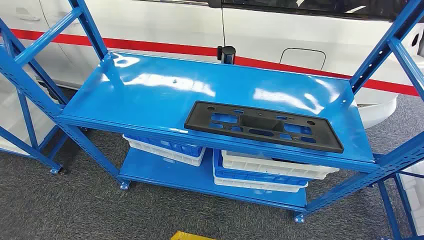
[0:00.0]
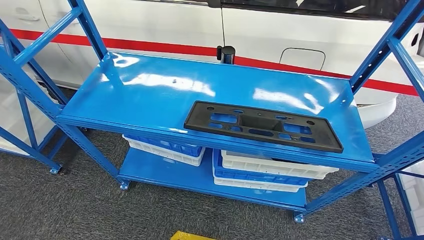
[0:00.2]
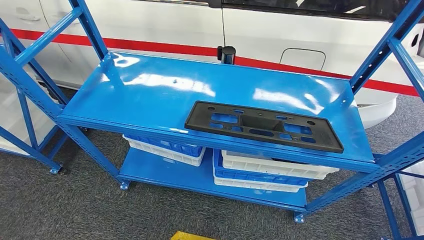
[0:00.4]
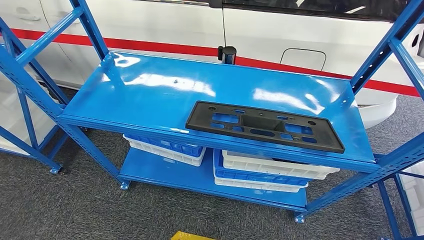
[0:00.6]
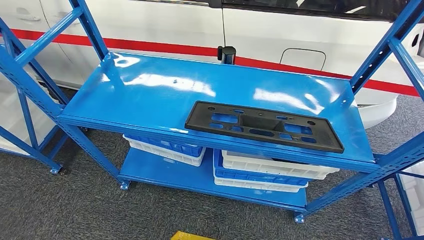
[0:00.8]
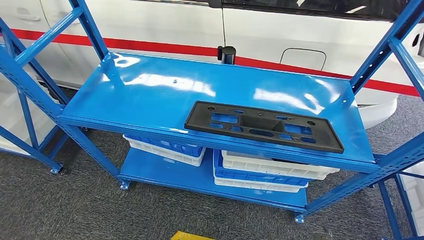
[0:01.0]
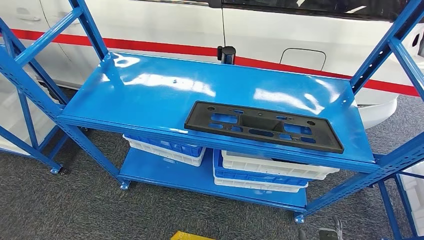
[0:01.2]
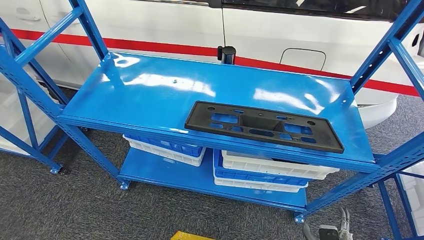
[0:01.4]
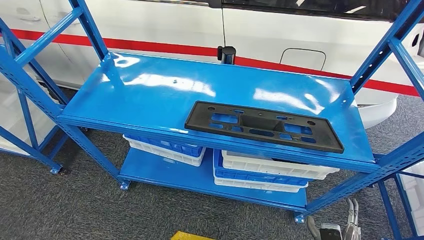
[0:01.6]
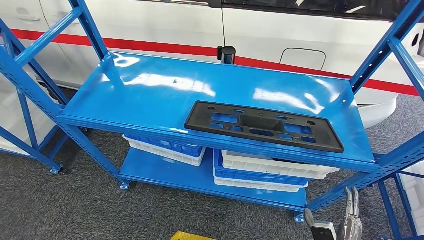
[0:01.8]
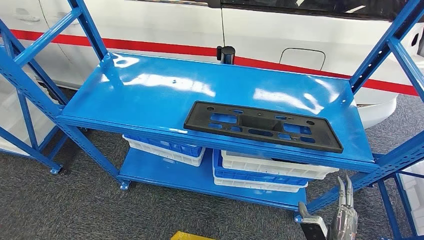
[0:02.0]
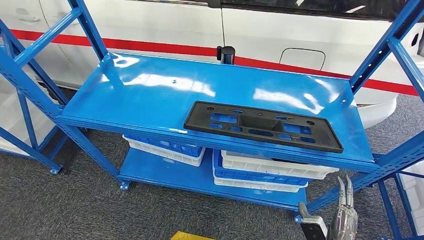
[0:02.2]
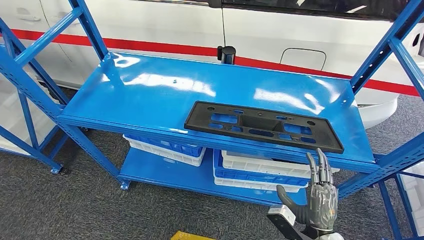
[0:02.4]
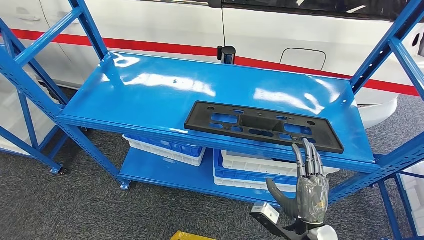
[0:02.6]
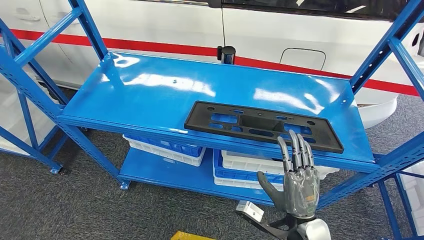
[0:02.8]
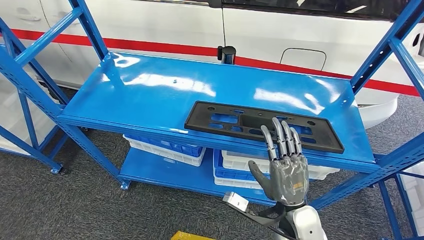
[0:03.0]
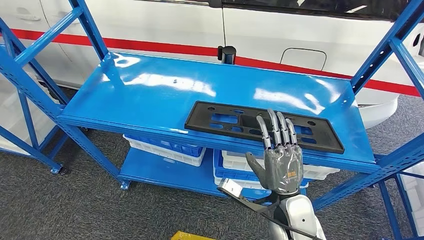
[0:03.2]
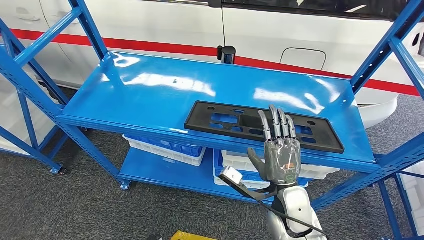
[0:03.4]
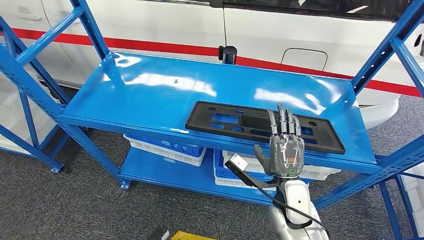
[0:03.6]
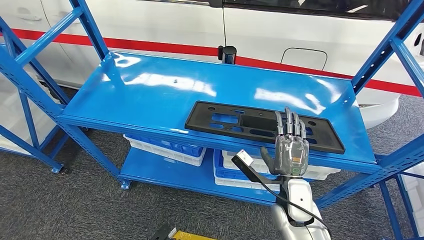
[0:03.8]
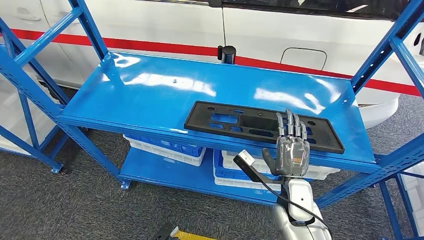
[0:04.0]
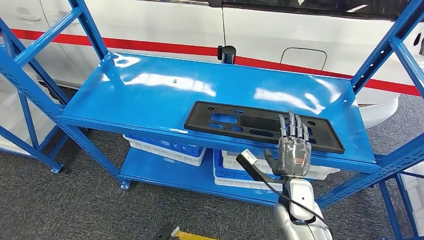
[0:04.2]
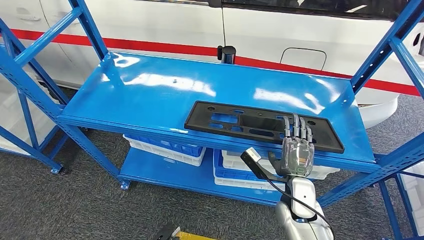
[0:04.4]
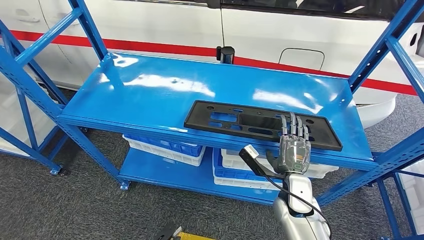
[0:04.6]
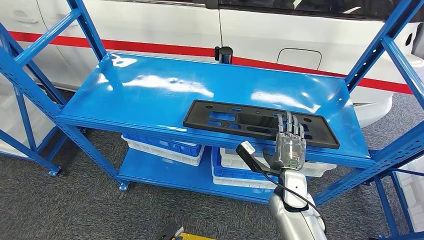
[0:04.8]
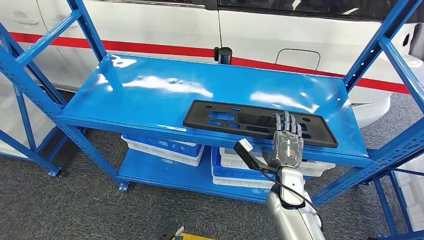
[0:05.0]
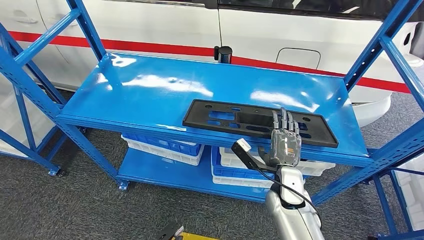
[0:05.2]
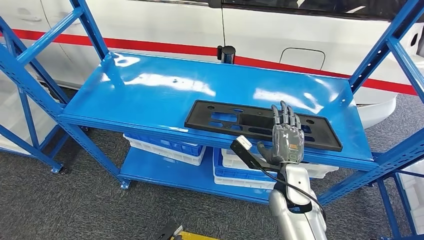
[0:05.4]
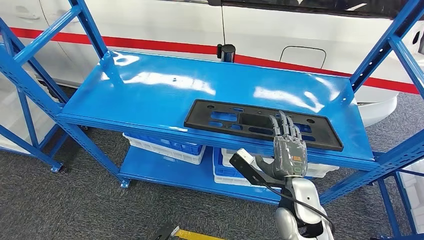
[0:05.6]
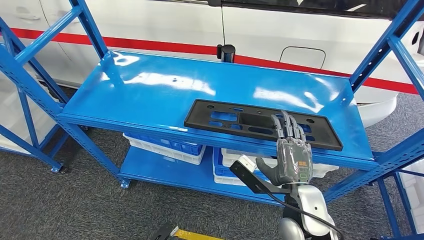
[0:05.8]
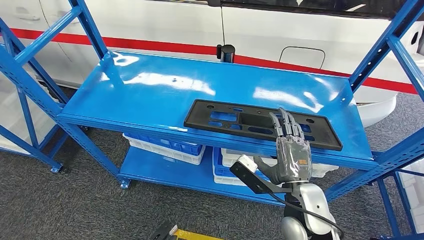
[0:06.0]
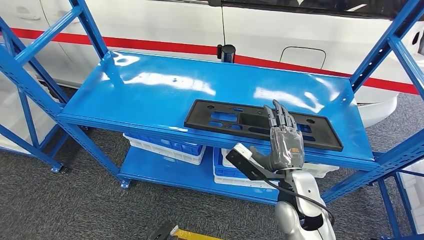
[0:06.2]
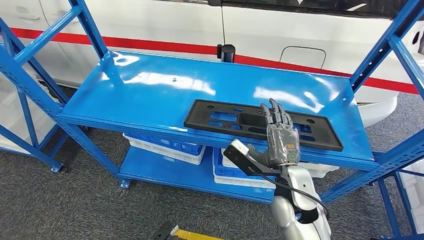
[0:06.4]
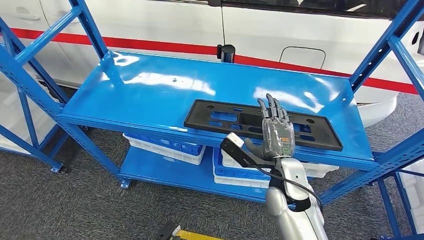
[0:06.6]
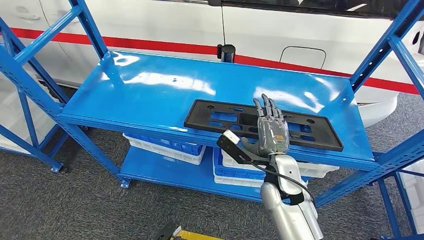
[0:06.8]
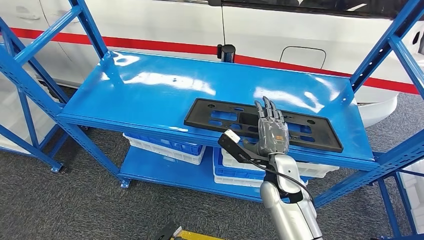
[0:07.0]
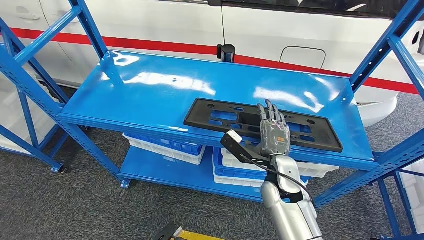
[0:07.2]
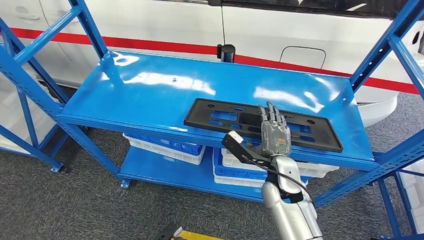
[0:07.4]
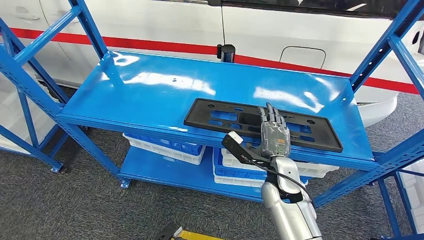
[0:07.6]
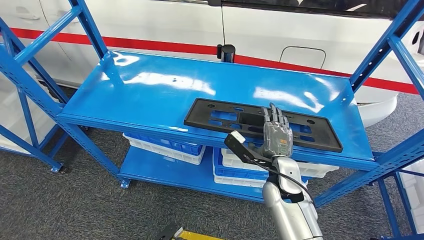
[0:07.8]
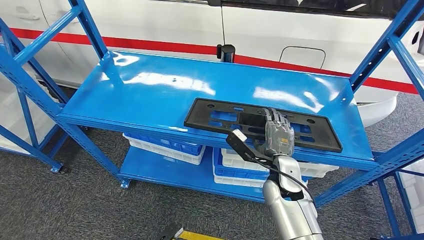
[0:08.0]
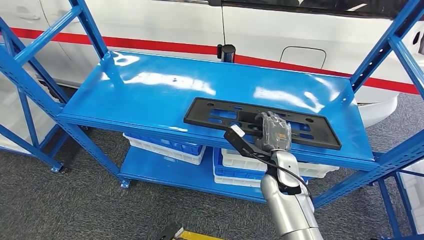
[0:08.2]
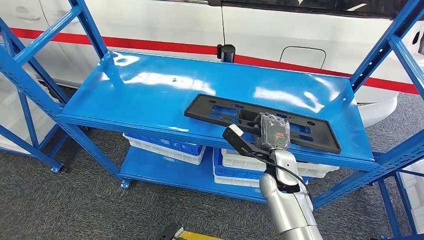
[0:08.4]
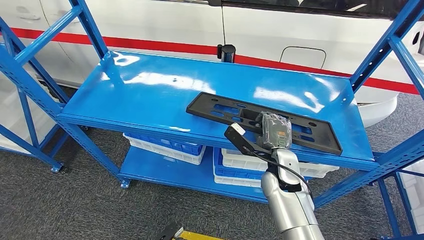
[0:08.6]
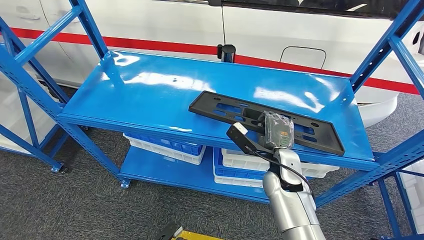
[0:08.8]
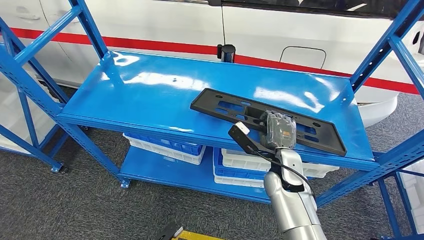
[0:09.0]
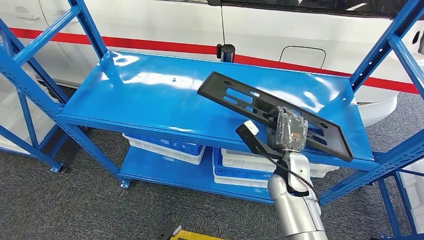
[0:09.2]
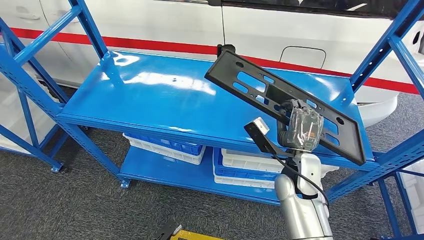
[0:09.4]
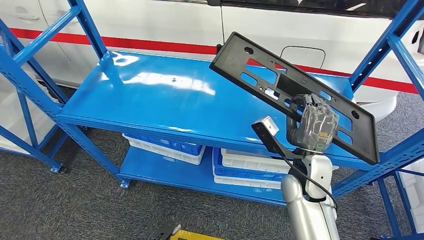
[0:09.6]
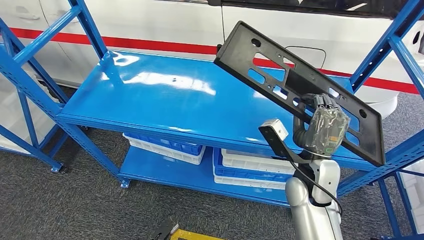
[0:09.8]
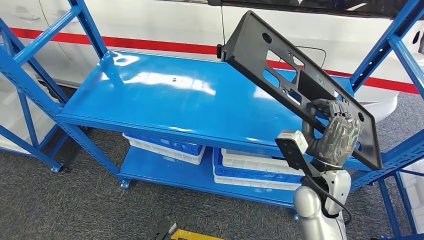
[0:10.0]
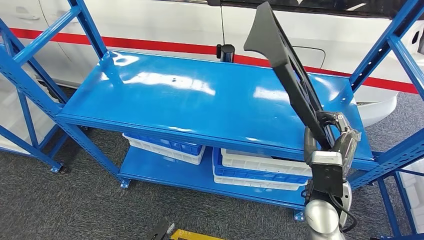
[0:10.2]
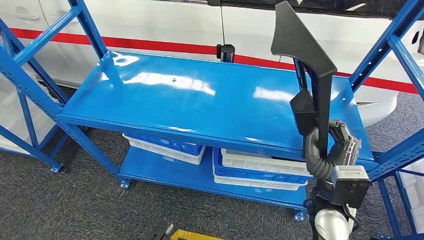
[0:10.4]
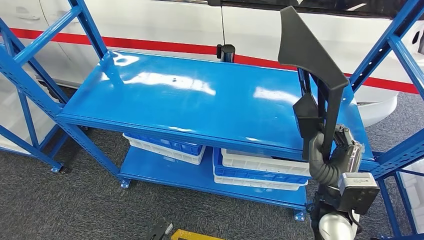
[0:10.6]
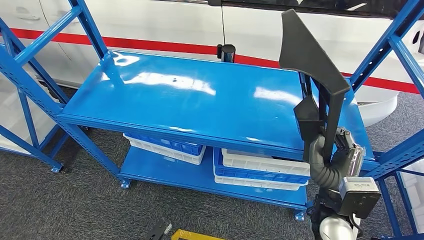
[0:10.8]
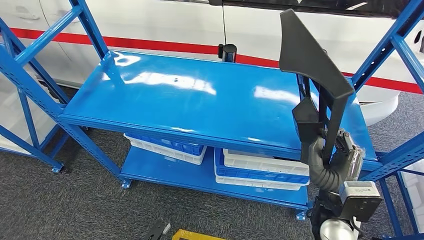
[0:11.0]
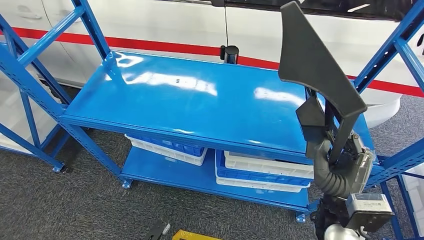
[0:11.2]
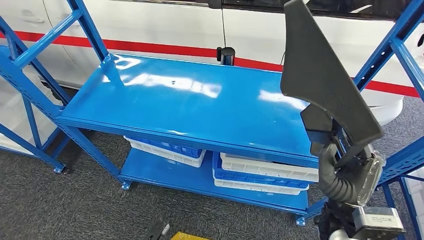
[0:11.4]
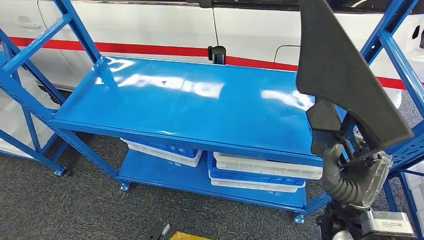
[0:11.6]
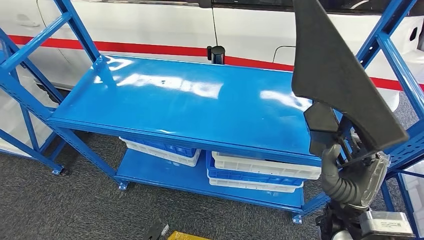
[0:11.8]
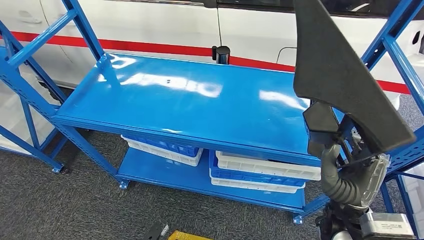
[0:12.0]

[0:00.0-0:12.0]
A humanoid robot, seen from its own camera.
1.6 to 3.0 s: The right hand travels upward and to the left by about 25 cm. The left hand moves to the right, about 5 cm.
3.0 to 4.4 s: The left hand moves forward, roughly 10 cm, while the right hand is displaced forward and downward by approximately 10 cm.
4.4 to 6.0 s: The right hand shifts roughly 10 cm upward and backward.
6.0 to 7.6 s: The right hand goes approximately 10 cm forward.
7.6 to 9.0 s: The hands move only a little.
9.0 to 10.4 s: The right hand is displaced backward and to the right by approximately 10 cm.

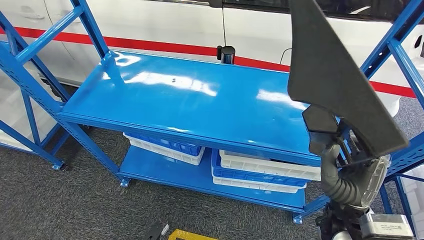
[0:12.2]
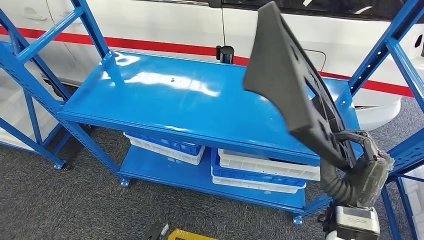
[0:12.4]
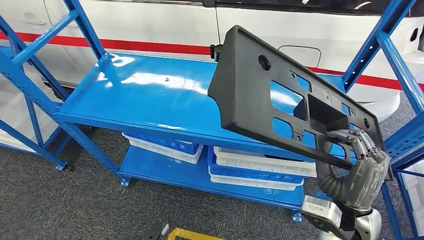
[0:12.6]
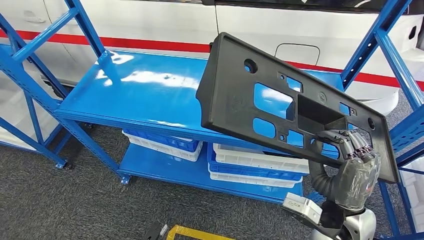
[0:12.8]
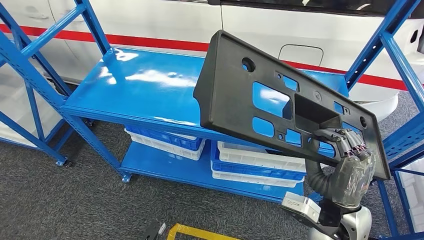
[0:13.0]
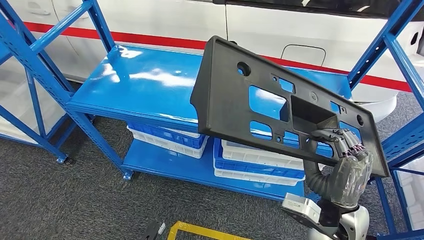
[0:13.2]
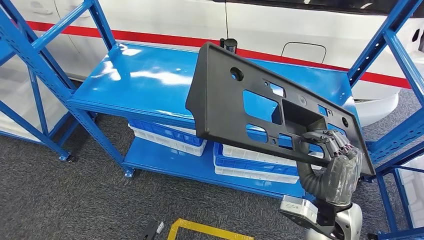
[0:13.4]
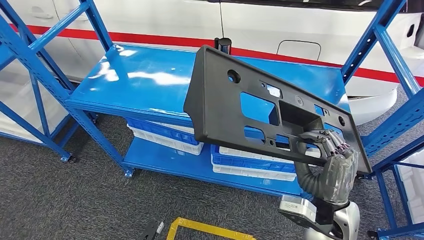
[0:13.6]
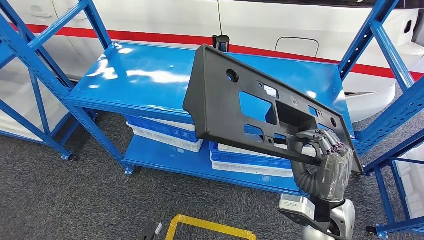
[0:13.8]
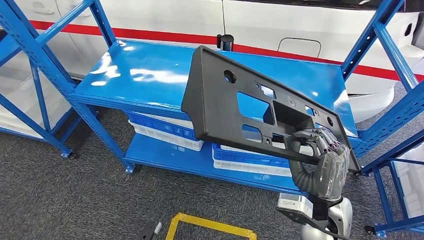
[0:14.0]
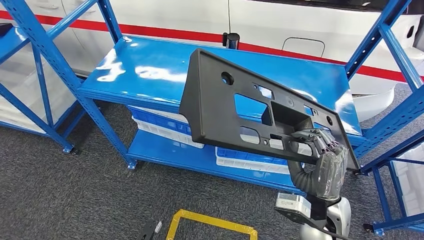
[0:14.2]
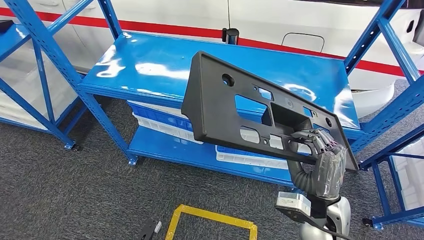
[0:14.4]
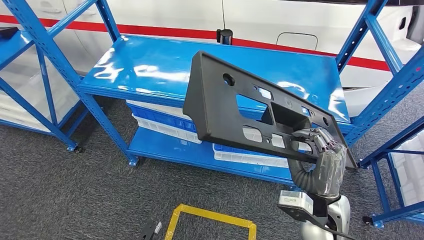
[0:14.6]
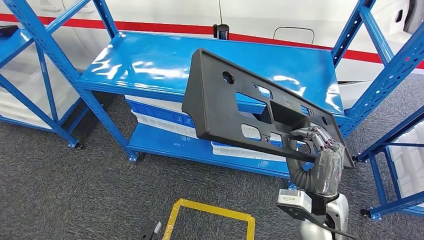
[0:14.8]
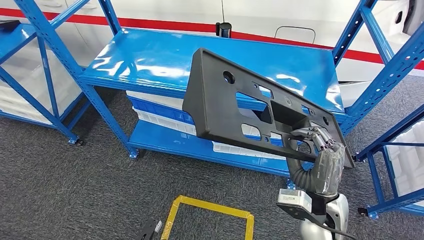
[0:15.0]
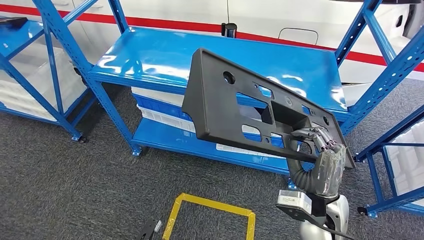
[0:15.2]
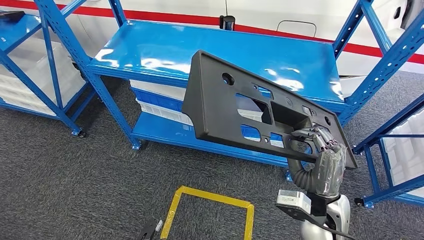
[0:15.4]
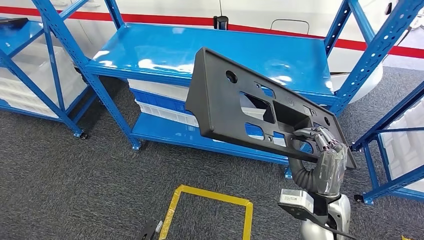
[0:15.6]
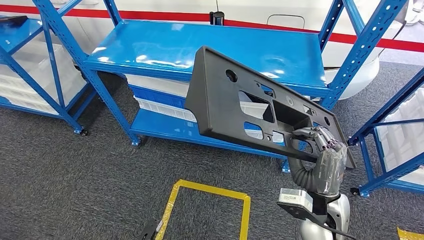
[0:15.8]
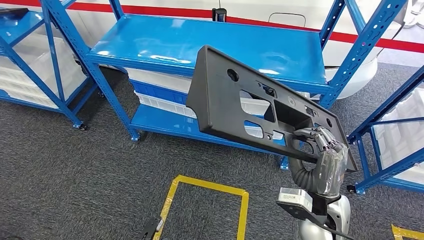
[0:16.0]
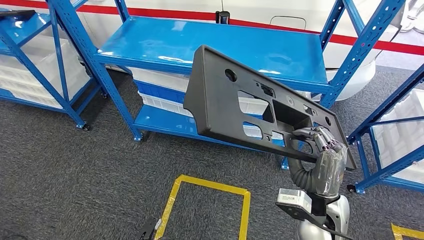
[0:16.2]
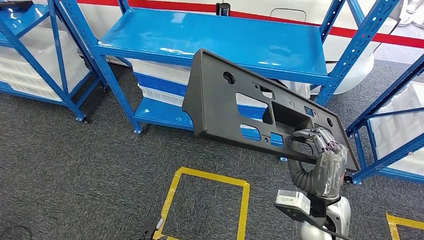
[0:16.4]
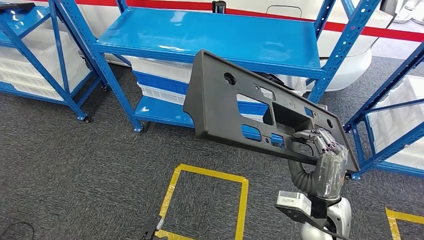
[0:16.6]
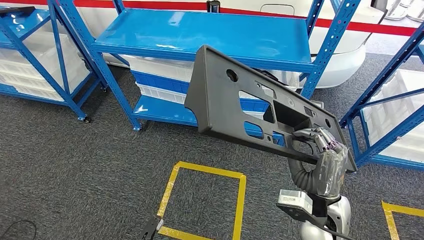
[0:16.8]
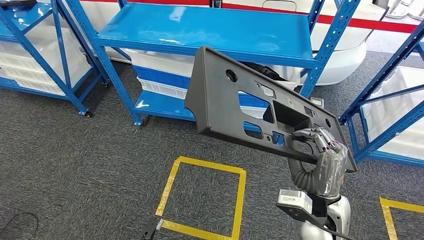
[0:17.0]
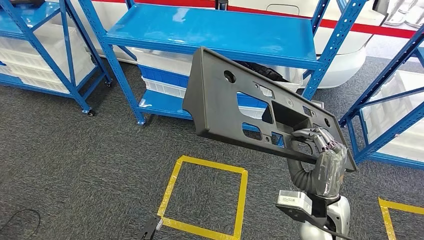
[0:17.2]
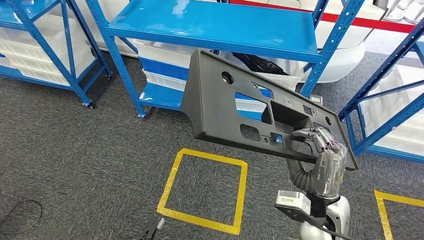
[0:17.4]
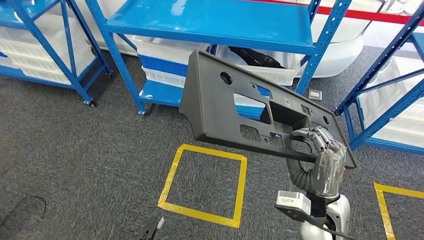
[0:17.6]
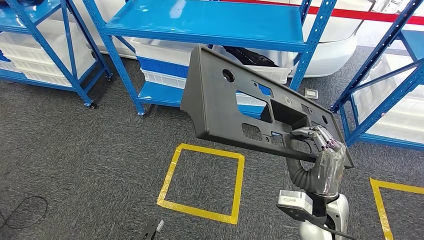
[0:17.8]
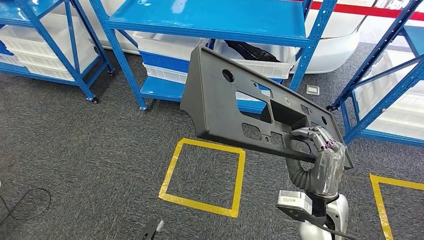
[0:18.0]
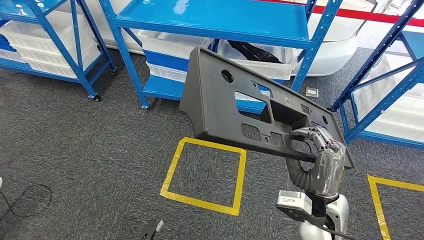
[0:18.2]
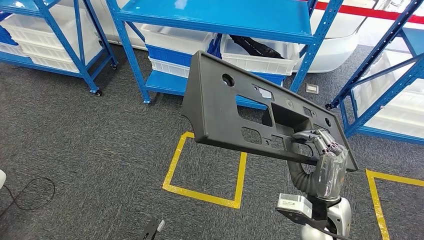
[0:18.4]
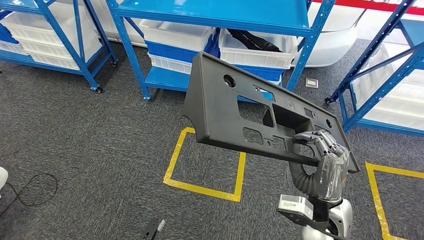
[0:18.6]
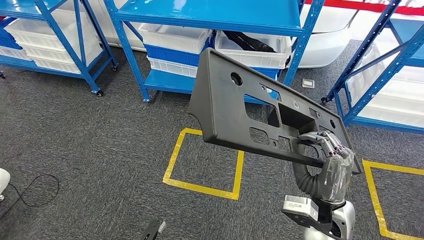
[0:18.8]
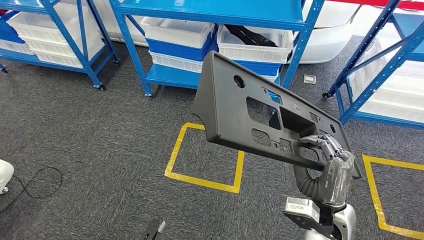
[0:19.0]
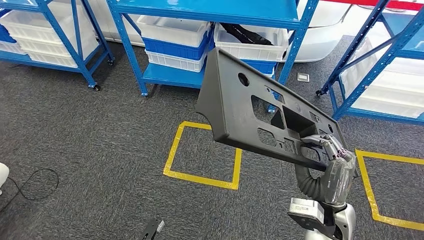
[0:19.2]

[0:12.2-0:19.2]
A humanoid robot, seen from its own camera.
Step, 12.2 to 15.6 s: Pick up the large material from the shelf.
